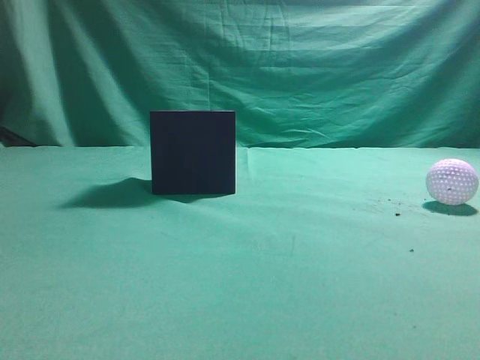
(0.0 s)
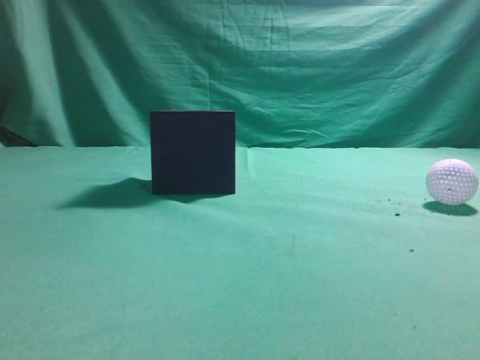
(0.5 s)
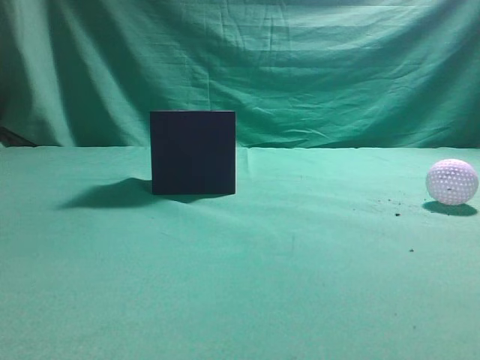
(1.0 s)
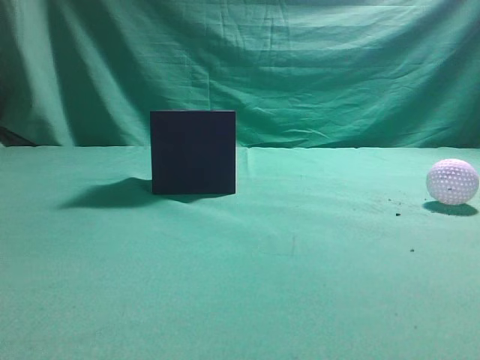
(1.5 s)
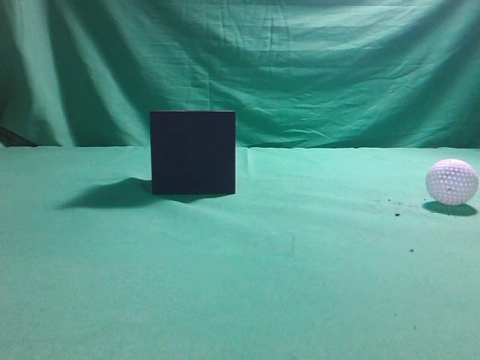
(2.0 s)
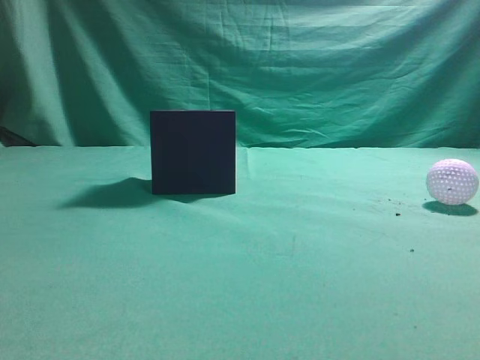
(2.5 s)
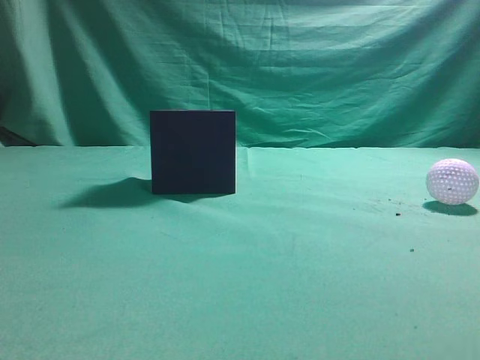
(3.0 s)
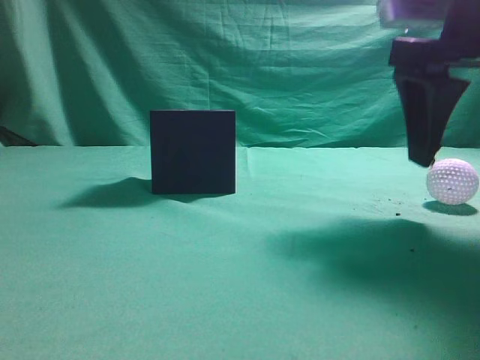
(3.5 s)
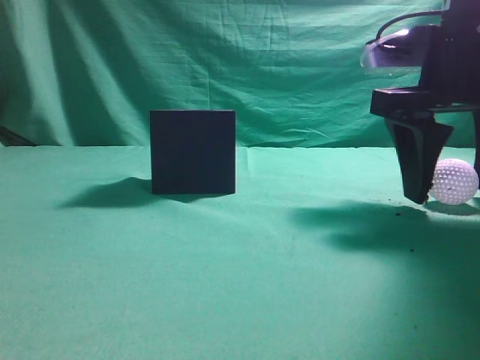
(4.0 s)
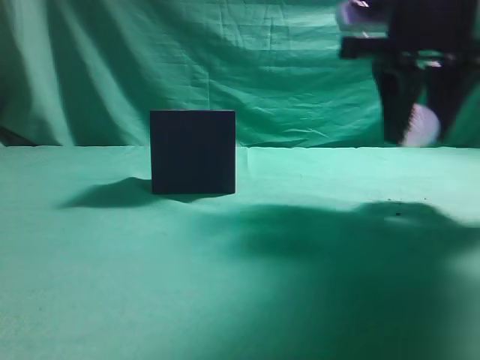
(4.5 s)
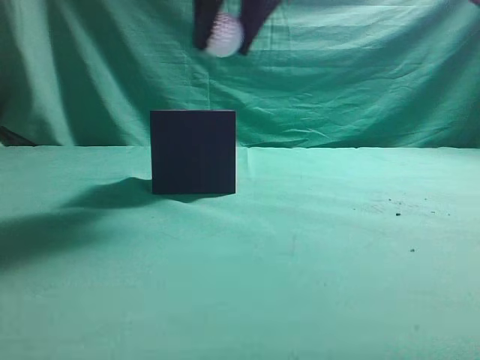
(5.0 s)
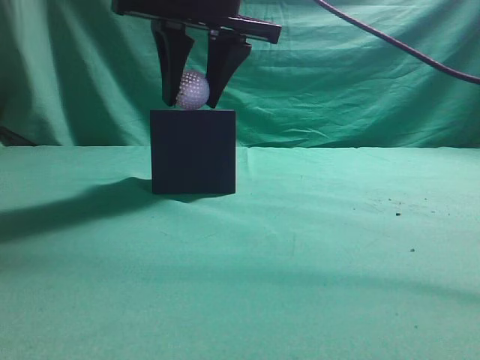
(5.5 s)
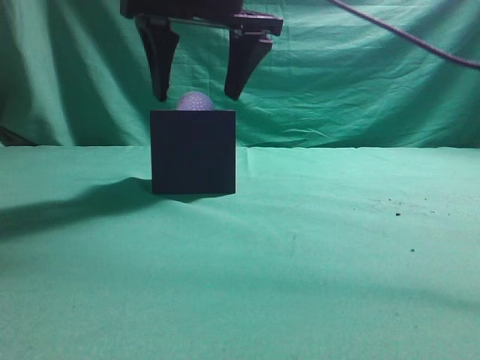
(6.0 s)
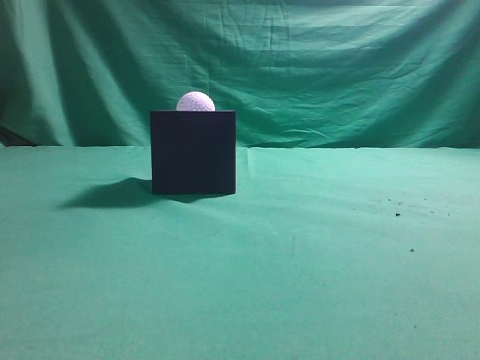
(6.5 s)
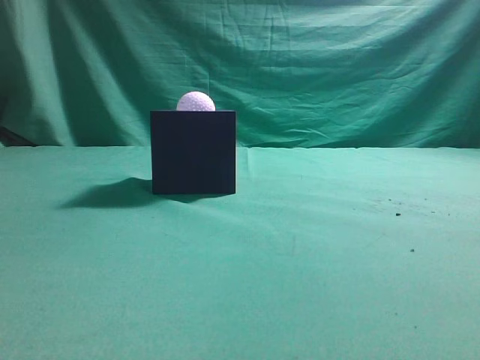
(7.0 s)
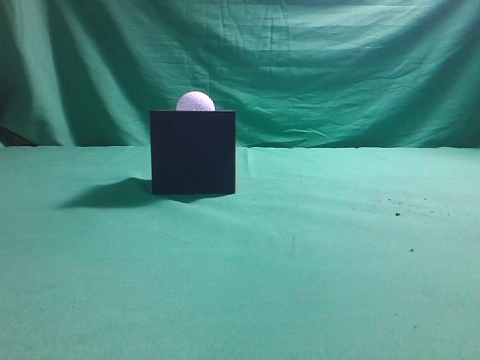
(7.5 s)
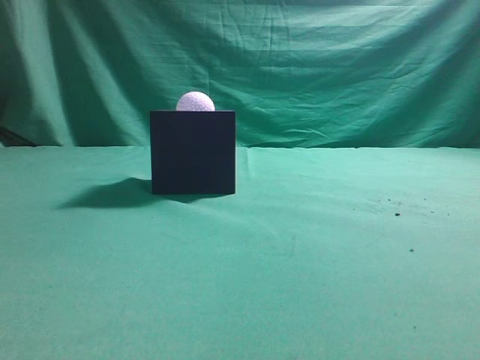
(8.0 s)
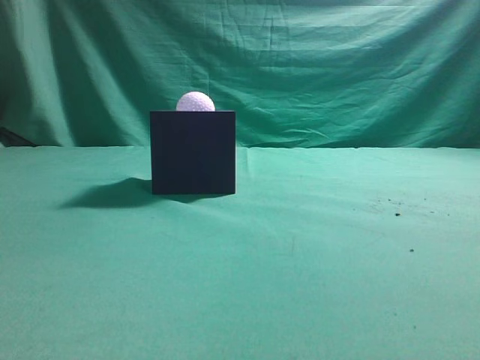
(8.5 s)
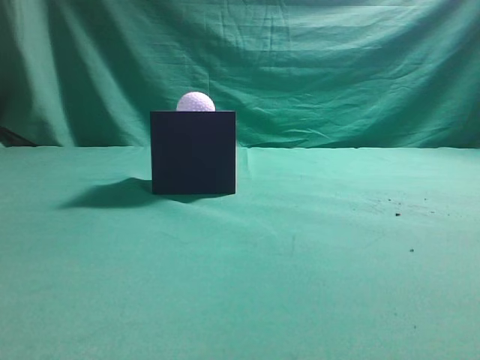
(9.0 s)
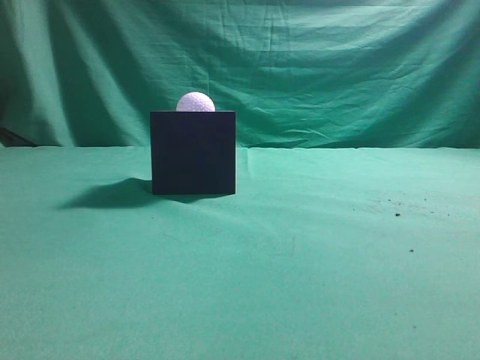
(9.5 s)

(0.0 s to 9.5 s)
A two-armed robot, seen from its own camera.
Task of the whole recording: Pick up the ball and place it in the circular groove above the cube.
Step, 0.0 s - 4.0 s: Grasp the sphere on the table.
Step, 4.5 s - 6.0 s: Place the sphere into the sphere-shaped recess.
2.0 s - 4.0 s: The right gripper is displaced forward, downward and to the left by roughly 30 cm, and opens its fingers.
4.0 s - 5.5 s: The right gripper shifts approximately 20 cm to the left and upward, and closes up.
5.5 s - 7.5 s: The right gripper heads backward, to the right and upward, covering about 35 cm, and closes.
